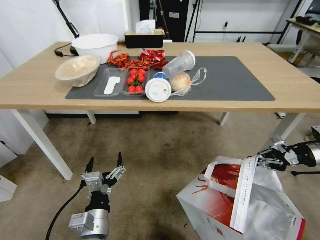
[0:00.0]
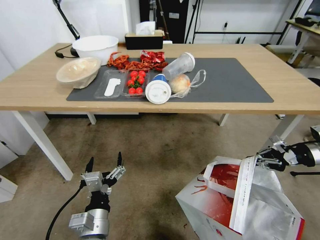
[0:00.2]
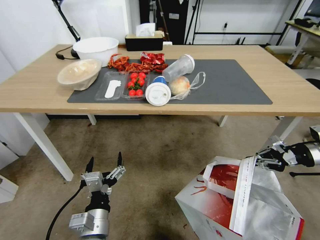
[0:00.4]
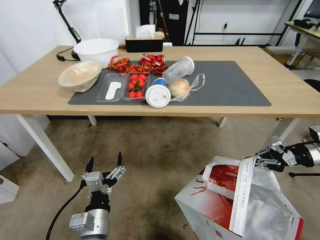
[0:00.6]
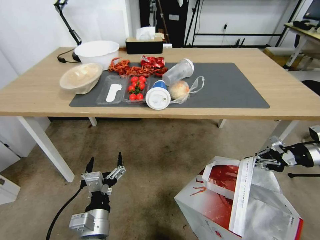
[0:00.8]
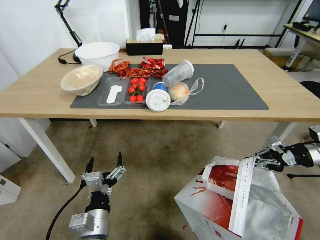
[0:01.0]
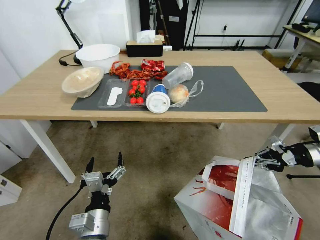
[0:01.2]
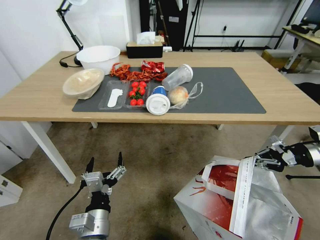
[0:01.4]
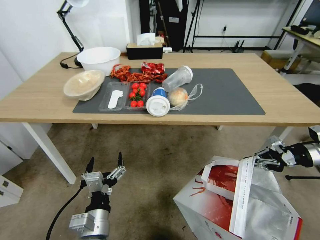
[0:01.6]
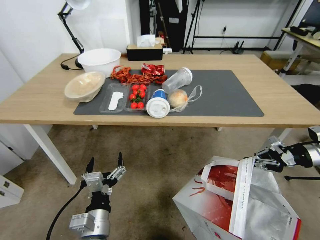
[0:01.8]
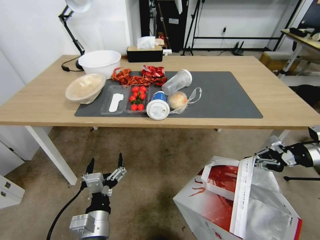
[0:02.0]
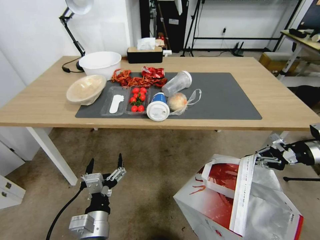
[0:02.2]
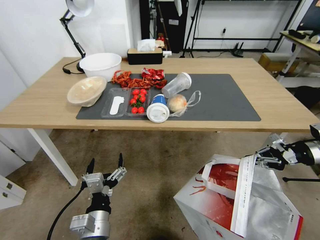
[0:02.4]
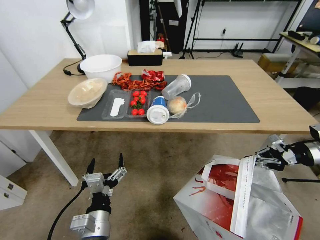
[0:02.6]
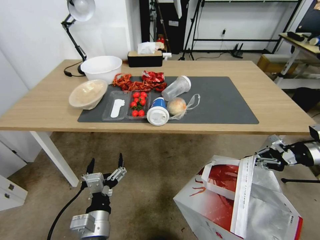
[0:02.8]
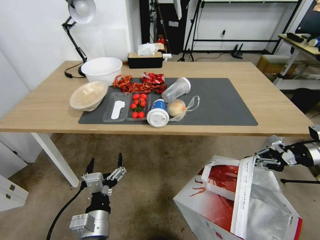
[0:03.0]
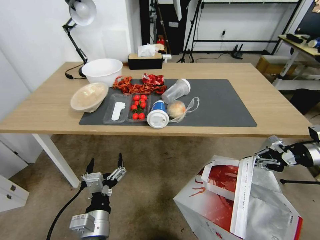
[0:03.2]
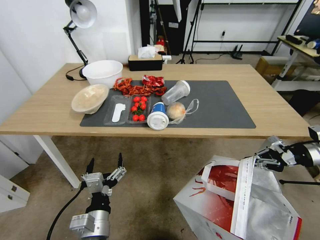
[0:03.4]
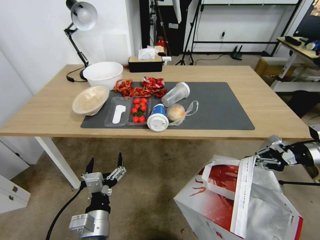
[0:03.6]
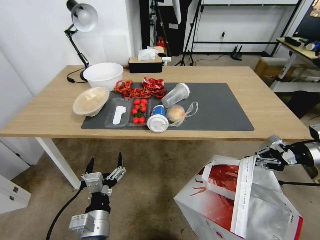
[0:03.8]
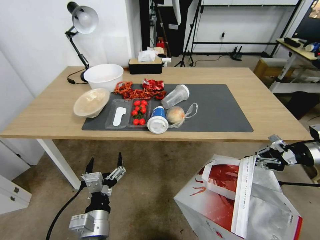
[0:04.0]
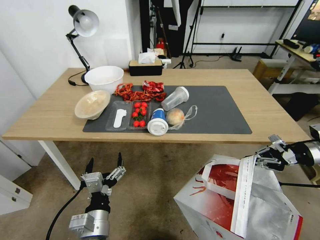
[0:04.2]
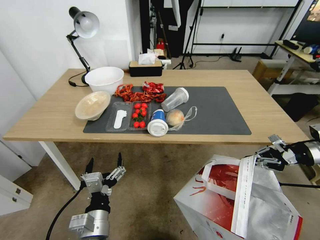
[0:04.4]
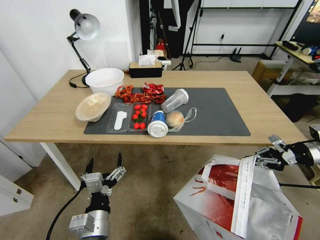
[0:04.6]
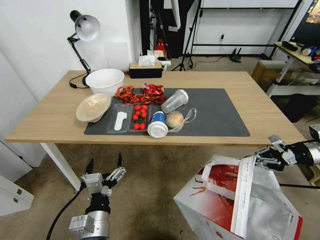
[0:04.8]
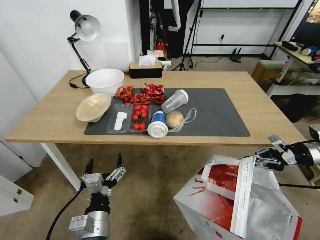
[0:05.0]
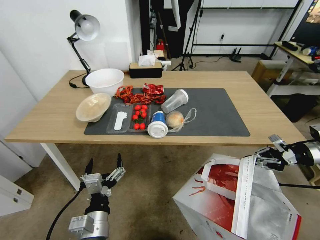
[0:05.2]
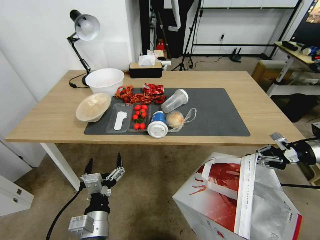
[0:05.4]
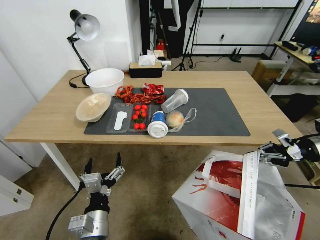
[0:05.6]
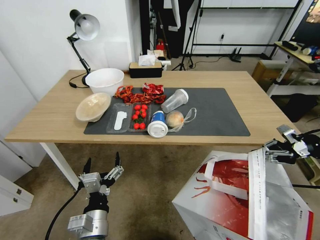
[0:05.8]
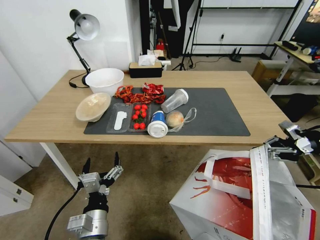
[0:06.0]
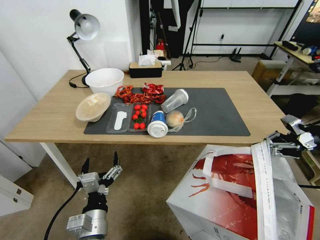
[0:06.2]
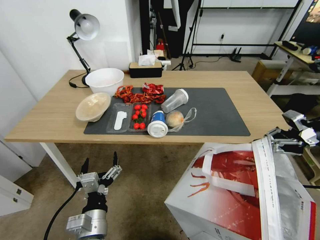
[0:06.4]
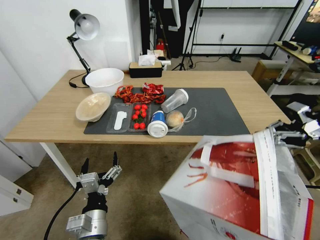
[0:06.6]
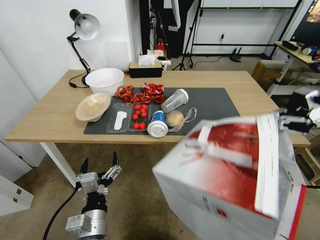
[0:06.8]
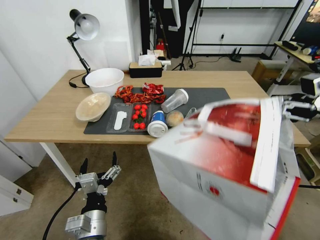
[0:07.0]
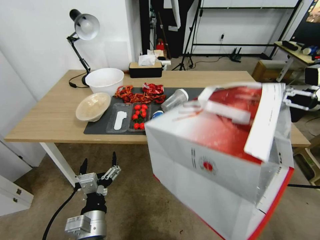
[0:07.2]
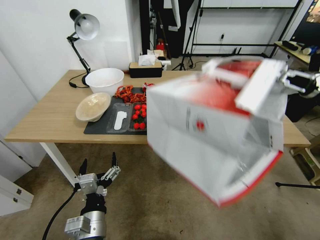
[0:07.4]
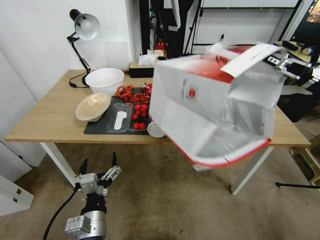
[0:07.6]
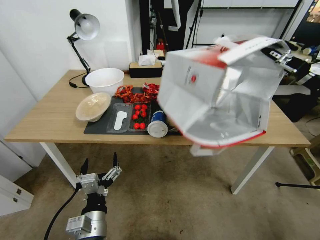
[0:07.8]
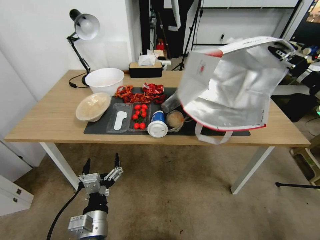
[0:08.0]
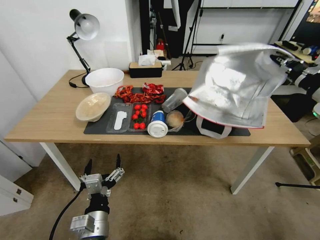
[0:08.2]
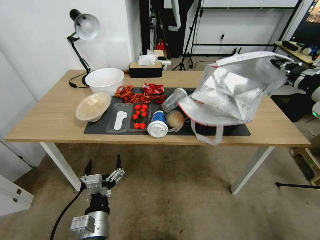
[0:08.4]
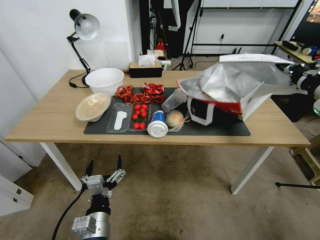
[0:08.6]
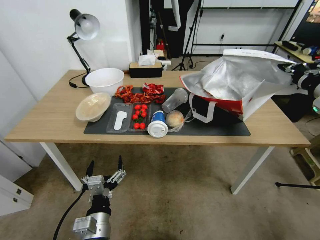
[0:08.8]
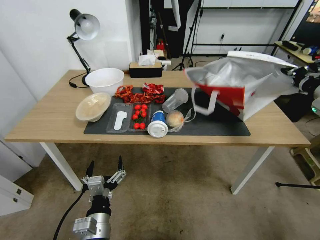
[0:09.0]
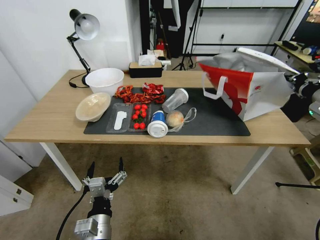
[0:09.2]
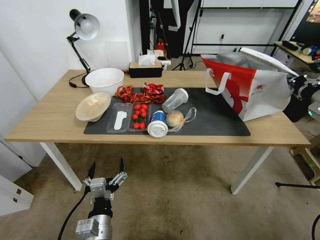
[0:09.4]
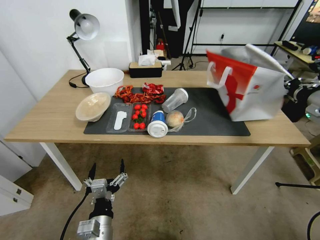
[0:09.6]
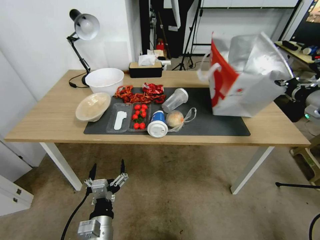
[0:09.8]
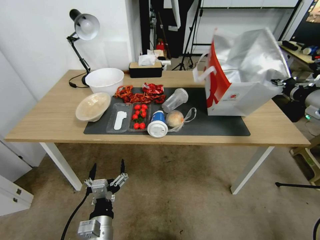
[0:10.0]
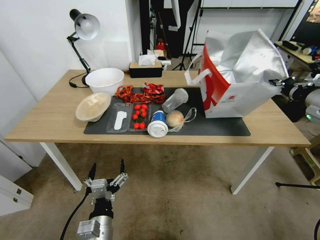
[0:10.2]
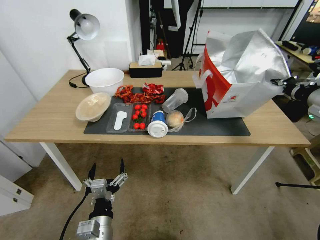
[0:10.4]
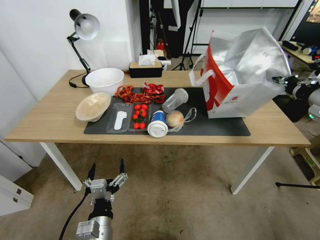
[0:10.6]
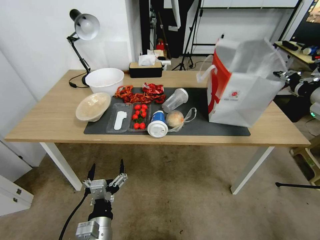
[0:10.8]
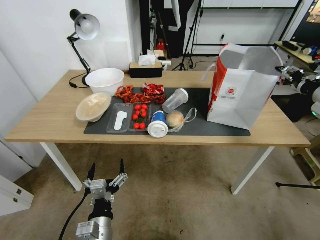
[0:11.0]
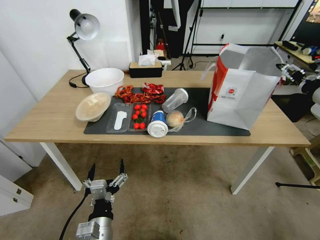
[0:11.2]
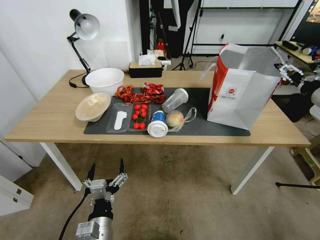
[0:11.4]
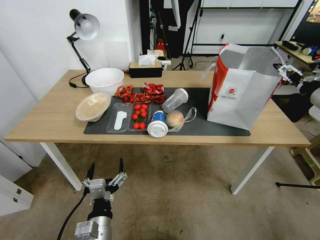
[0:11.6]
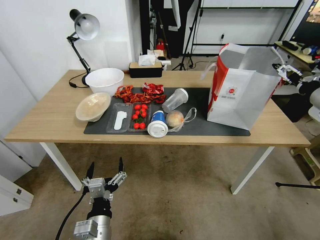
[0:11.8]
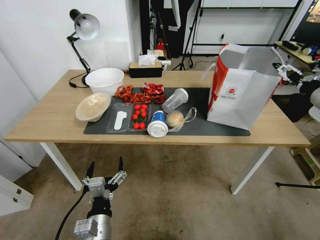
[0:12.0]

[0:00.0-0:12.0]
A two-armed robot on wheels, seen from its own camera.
Task of the whole recording: Pick up the food delivery bag from the floor and place it on the table.
0:04.4 to 0:06.0: The right gripper moves upward, about 5 cm.
0:06.0 to 0:07.6: The right gripper goes approximately 10 cm upward.
0:07.6 to 0:09.0: The right gripper shifts about 5 cm to the left.
0:09.0 to 0:10.4: The grippers make only small movements.
0:10.4 to 0:12.0: The right gripper opens its fingers.

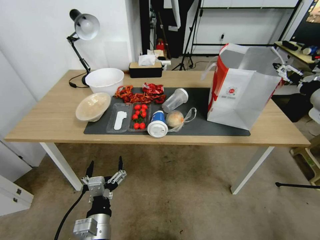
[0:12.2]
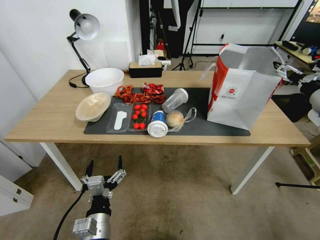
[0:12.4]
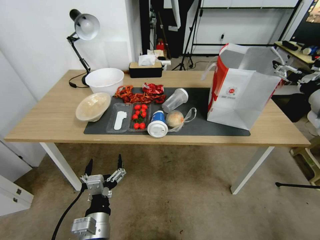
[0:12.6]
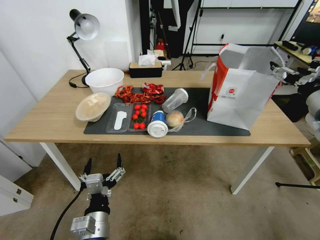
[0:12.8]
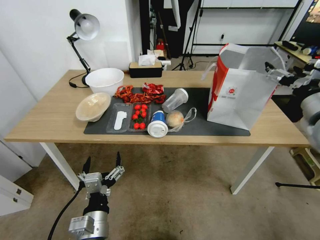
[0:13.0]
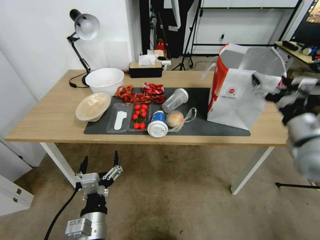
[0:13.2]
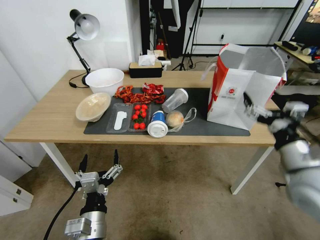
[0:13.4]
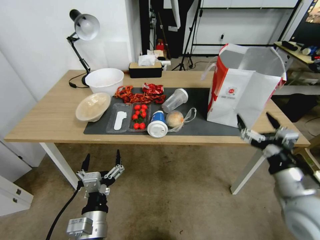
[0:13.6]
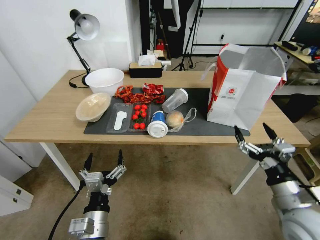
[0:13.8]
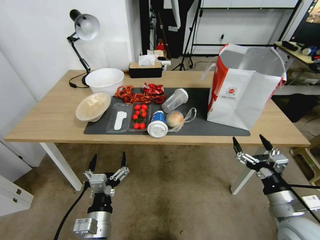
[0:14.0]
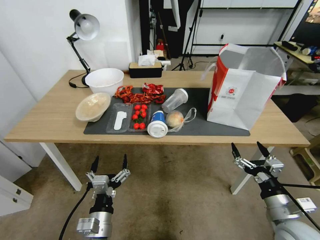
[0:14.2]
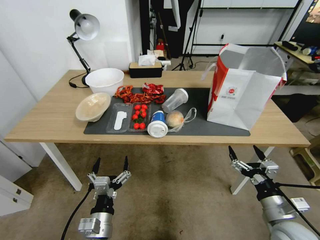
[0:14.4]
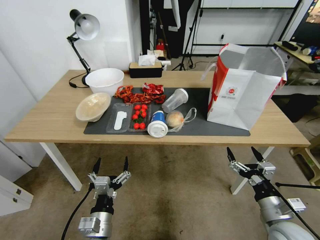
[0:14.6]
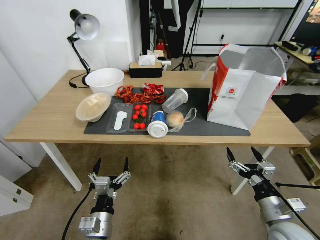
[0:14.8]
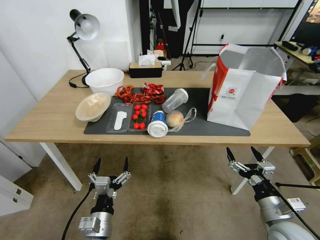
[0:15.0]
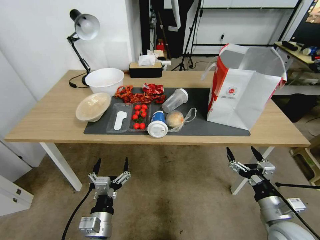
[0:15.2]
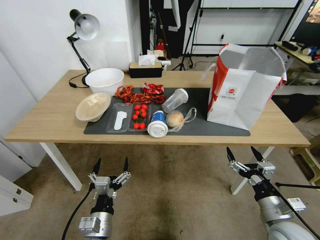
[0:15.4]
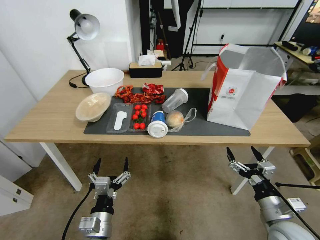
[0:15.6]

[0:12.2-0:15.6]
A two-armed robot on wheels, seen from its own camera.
Task of the whole recording: Pick up the food delivery bag from the floor and place it on the table.
0:12.2 to 0:13.8: The right gripper goes about 30 cm downward, backward and to the left.
0:13.8 to 0:15.6: The right gripper shifts roughly 5 cm downward.

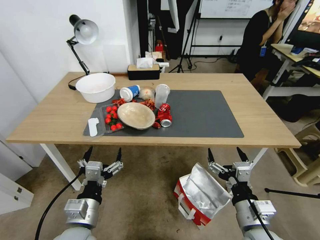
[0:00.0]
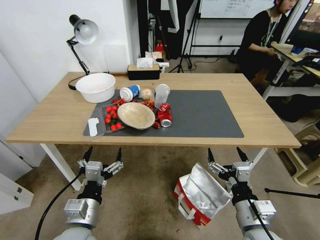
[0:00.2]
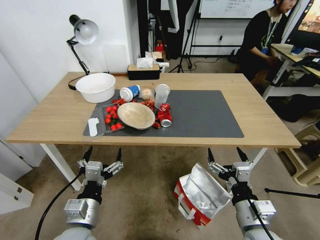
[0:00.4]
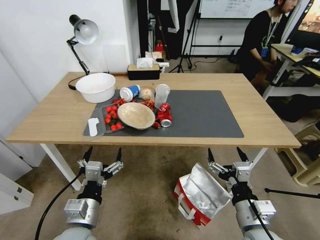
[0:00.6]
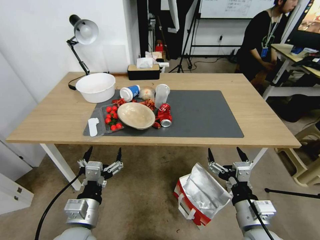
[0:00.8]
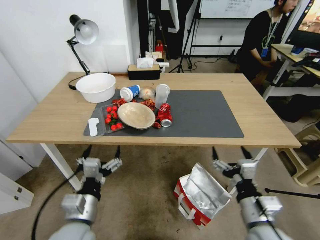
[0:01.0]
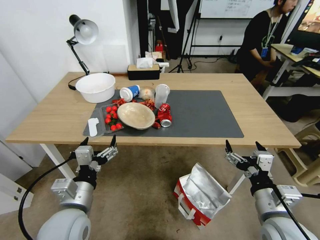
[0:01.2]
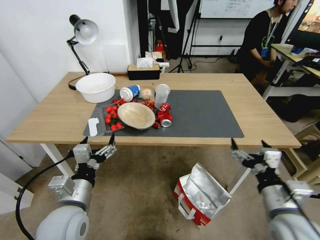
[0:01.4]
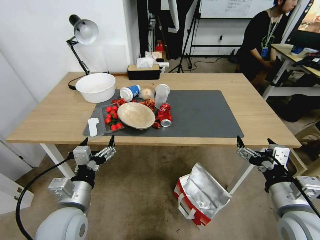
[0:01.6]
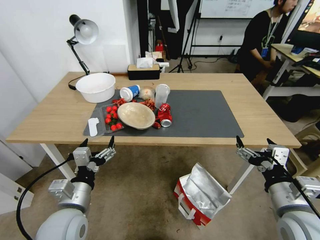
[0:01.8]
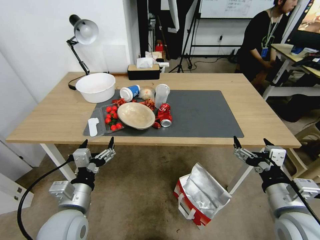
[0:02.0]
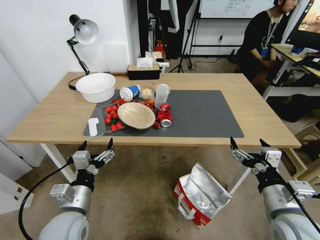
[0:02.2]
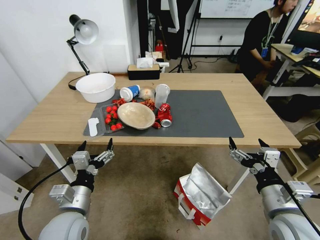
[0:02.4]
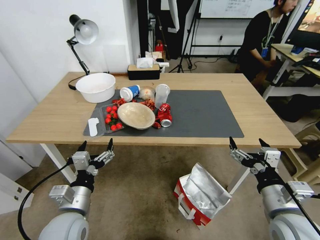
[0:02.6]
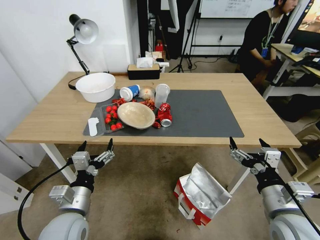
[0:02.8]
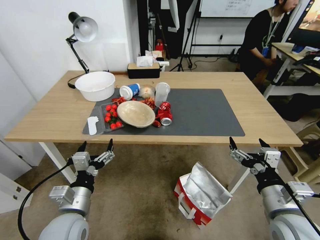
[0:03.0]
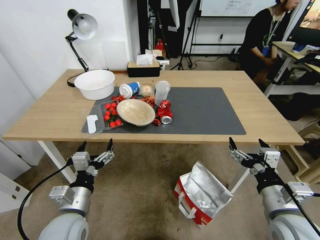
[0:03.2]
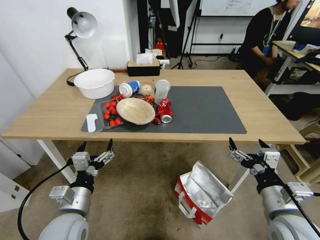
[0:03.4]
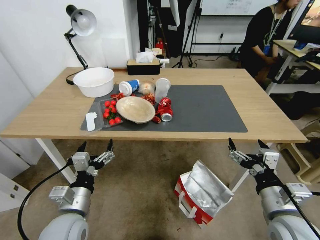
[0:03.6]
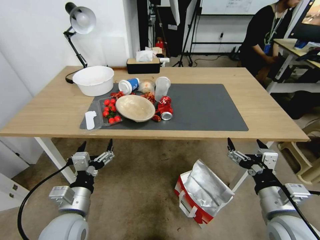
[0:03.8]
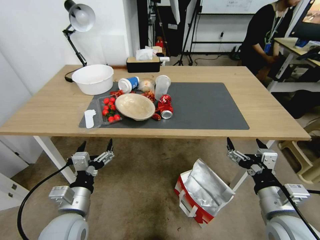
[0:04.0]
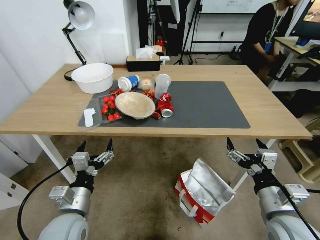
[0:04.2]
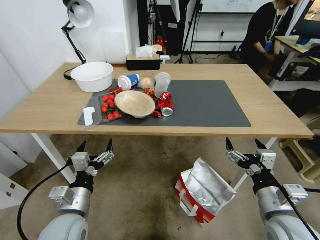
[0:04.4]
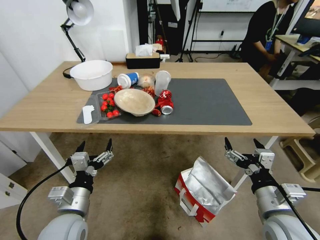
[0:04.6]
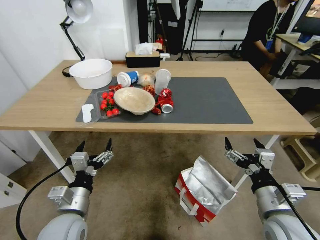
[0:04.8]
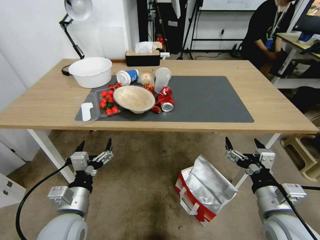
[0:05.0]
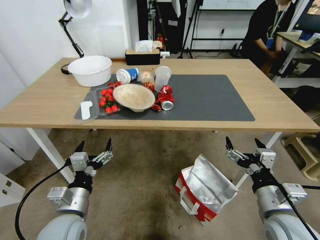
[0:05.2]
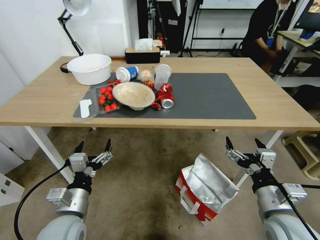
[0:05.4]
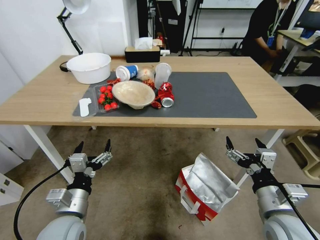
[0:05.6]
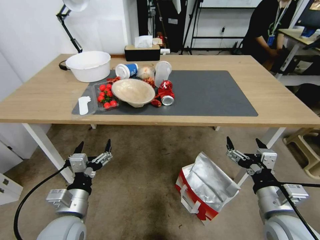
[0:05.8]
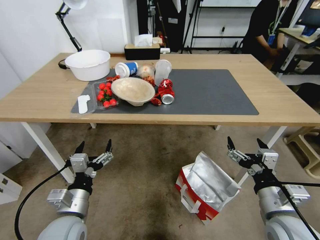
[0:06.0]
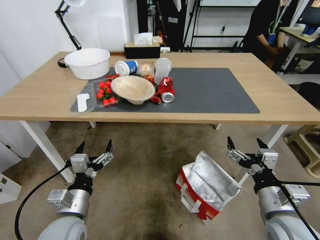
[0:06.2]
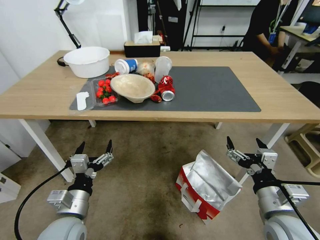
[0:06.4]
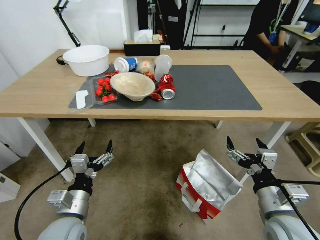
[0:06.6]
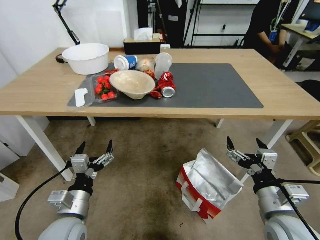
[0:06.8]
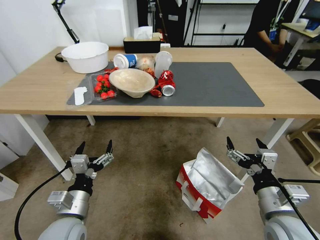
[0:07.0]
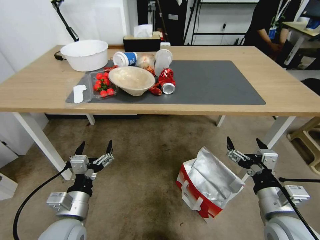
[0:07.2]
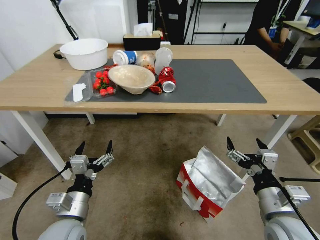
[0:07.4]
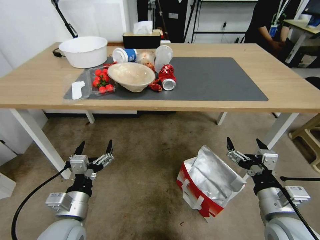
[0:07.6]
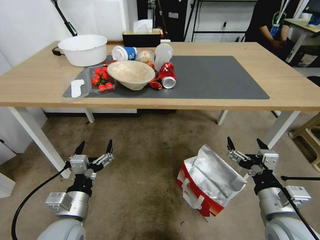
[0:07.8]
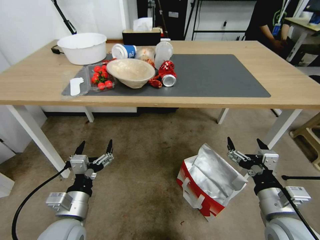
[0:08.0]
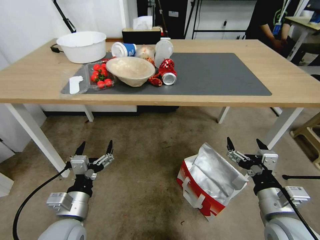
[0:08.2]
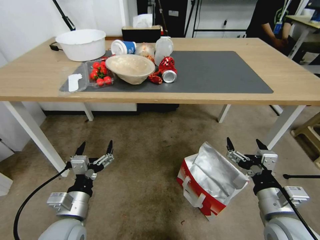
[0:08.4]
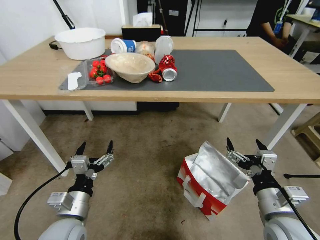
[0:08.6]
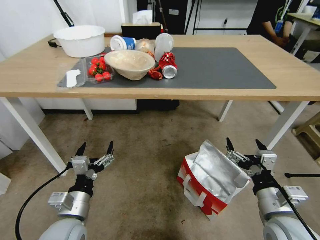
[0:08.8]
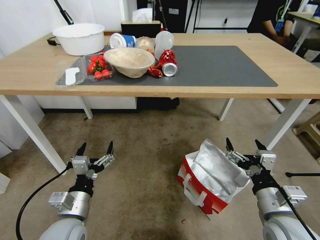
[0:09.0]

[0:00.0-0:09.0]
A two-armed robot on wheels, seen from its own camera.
Task of the whole recording: Pick up the food delivery bag from the floor and place it on the table.
0:01.6 to 0:03.0: The grippers move only a little.
